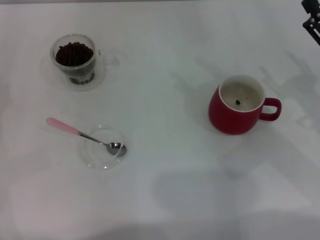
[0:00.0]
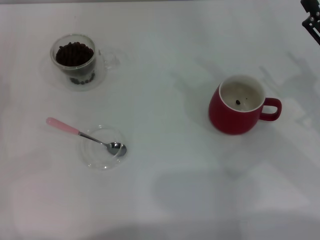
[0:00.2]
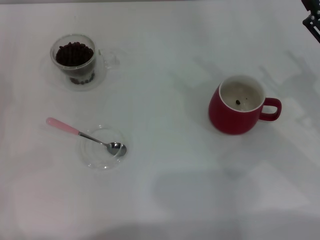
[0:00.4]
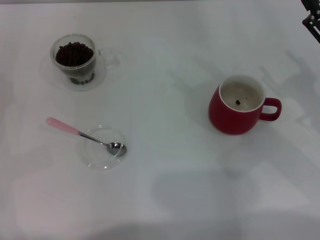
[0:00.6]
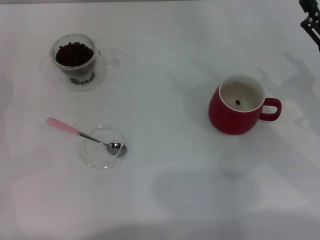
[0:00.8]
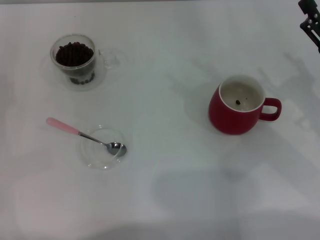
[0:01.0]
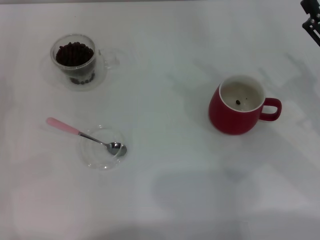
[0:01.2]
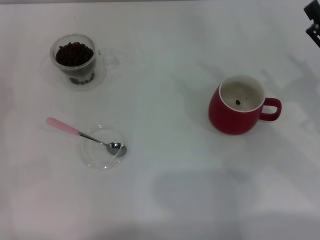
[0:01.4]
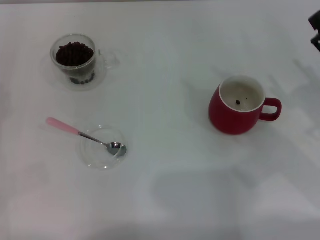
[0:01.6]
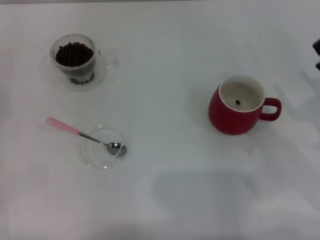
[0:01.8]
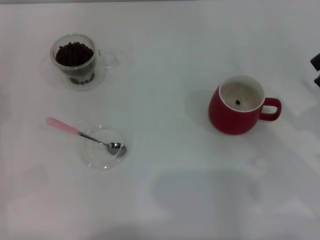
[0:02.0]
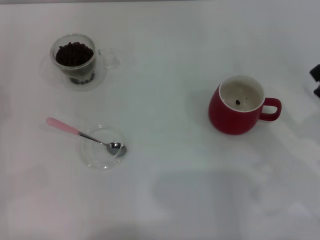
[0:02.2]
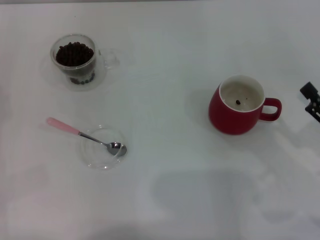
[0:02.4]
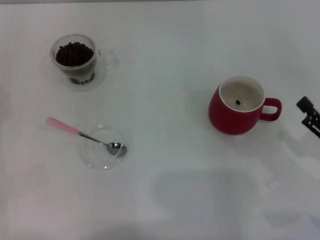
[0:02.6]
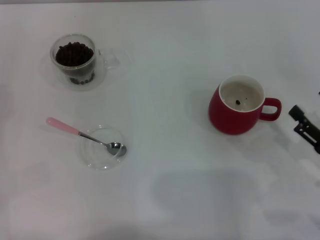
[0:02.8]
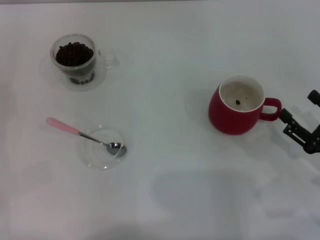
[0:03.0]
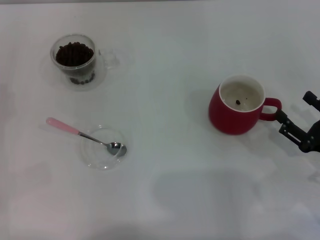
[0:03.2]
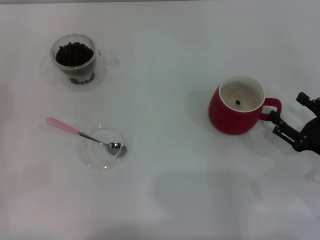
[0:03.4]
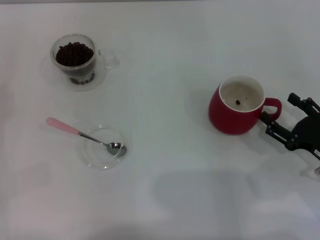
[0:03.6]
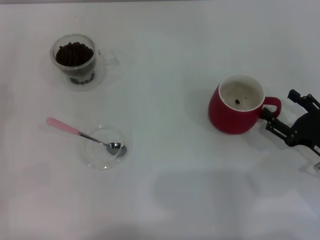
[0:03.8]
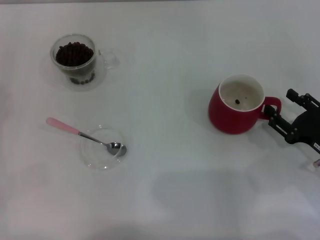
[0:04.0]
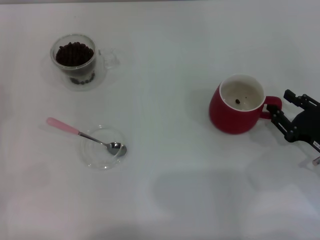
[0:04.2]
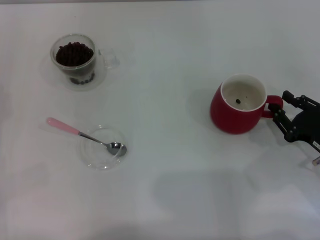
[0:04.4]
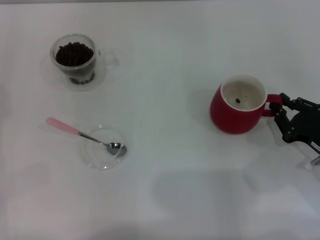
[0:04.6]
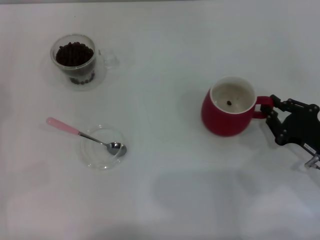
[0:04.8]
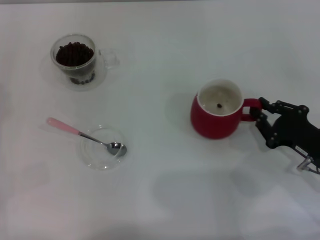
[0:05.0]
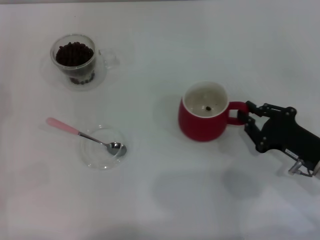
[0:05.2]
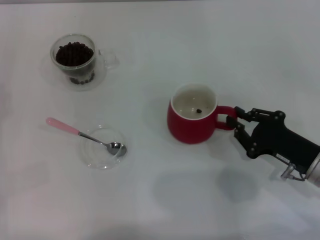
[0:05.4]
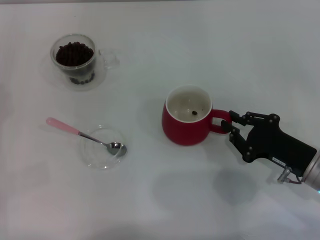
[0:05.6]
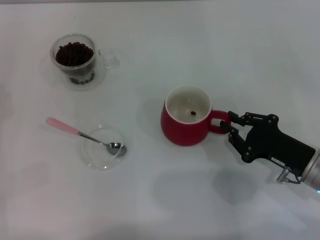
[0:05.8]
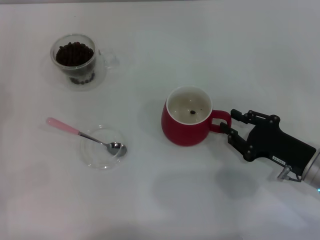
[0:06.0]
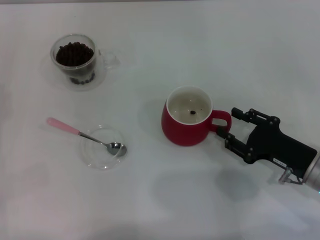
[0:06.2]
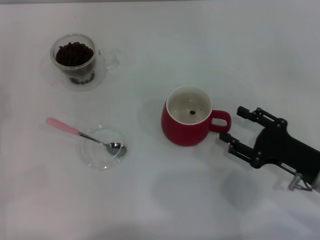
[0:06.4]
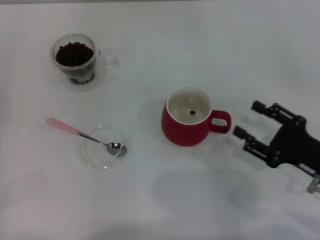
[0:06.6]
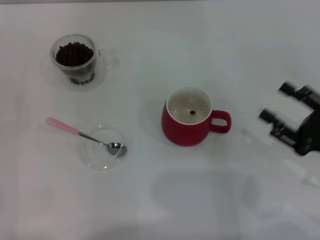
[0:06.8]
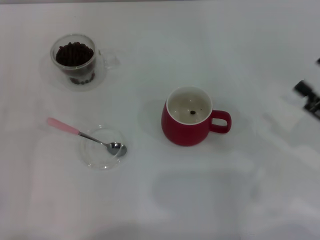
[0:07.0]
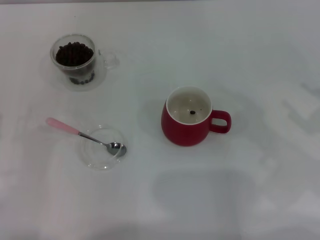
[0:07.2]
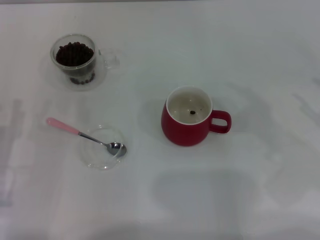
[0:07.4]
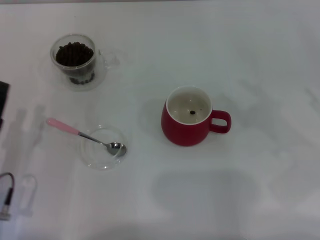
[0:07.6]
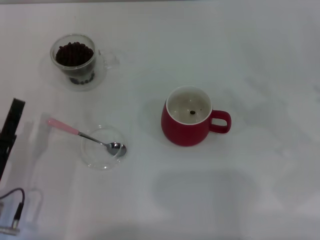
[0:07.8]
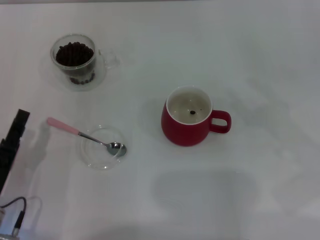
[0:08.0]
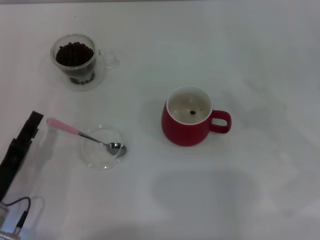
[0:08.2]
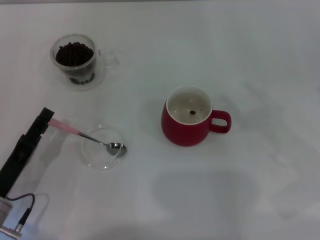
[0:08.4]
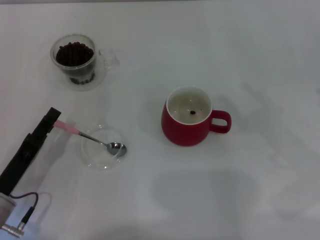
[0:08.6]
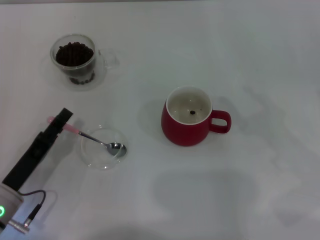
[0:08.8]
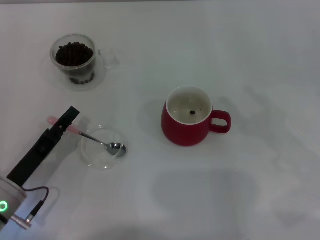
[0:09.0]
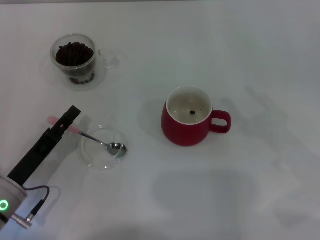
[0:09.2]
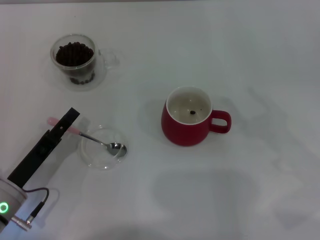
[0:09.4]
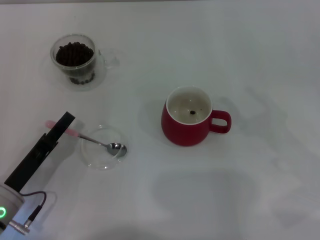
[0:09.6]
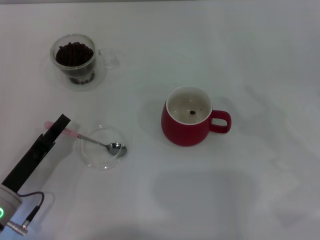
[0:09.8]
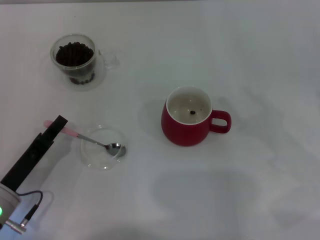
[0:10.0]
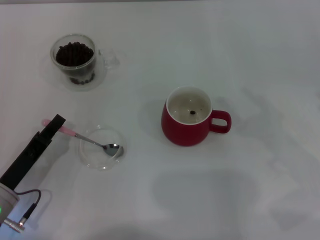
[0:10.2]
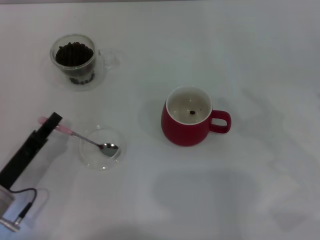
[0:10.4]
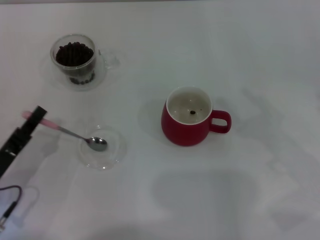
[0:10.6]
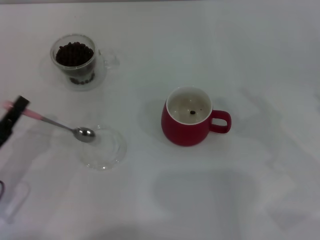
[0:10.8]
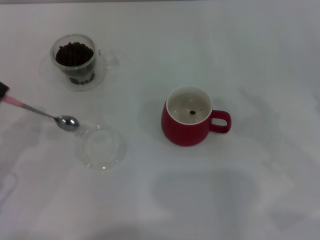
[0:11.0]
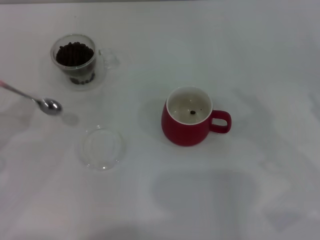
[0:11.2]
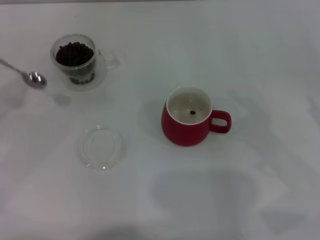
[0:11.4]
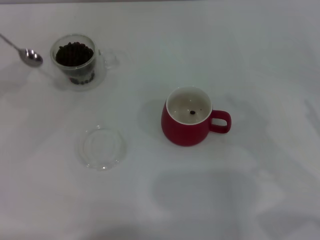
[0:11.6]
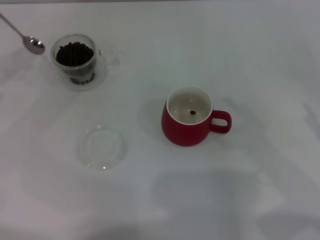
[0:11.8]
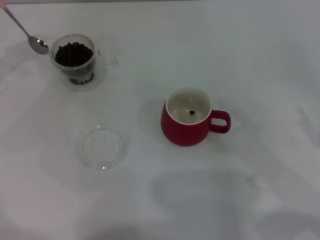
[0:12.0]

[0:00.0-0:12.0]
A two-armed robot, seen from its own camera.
Task of the whole recording: Use a pink spoon to take out the coffee beans from the glass and pour them into the red cup.
Step, 0:00.0 to 0:06.4: Move the cup to the center of view with the left gripper.
Step, 0:06.6 to 0:10.8: Pick up the spoon with the right gripper.
0:01.6 to 0:03.0: The right gripper shifts roughly 10 cm backward and downward.
0:03.0 to 0:04.4: The right gripper closes.
0:04.4 to 0:06.0: The right gripper closes.
0:06.0 to 0:07.6: The left gripper is displaced to the right by about 10 cm; the right gripper goes some 15 cm to the right and upward, and opens.
0:09.0 to 0:10.4: The left gripper closes.
0:10.4 to 0:12.0: The left gripper goes roughly 25 cm forward, upward and to the left.

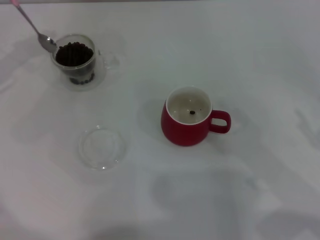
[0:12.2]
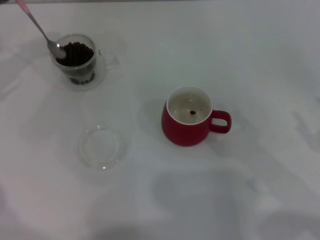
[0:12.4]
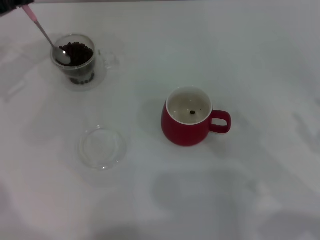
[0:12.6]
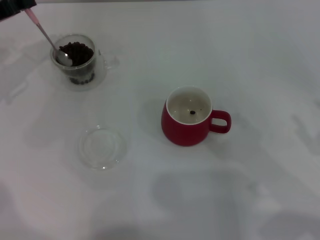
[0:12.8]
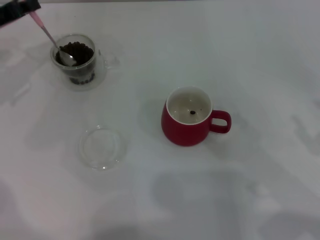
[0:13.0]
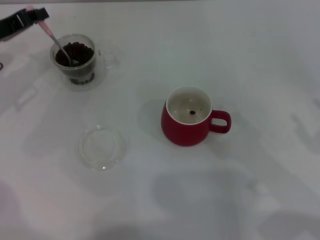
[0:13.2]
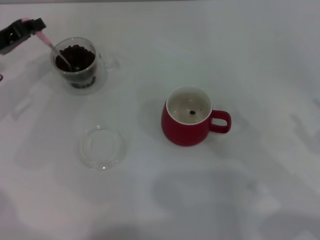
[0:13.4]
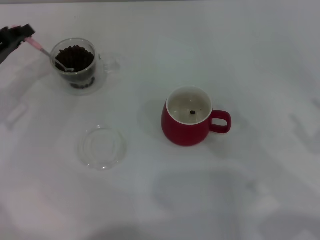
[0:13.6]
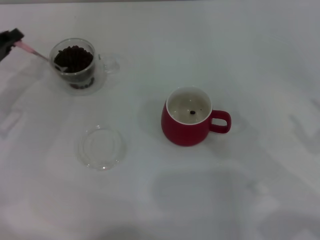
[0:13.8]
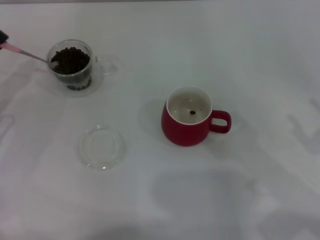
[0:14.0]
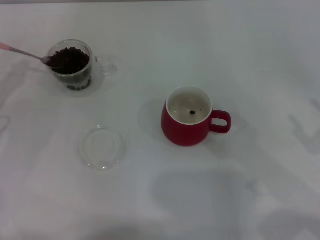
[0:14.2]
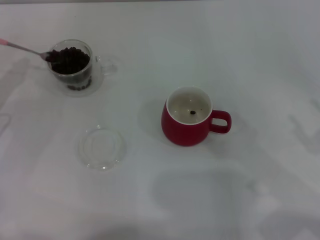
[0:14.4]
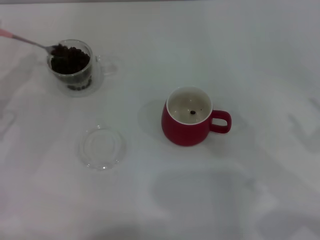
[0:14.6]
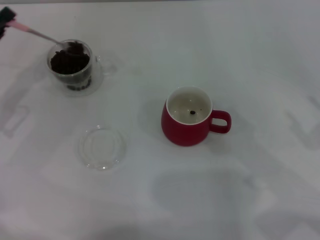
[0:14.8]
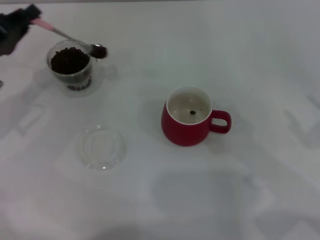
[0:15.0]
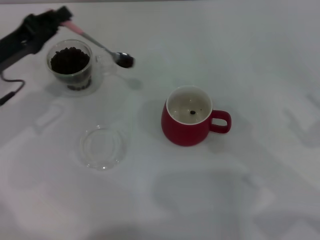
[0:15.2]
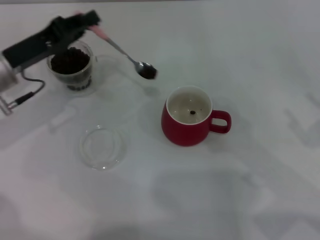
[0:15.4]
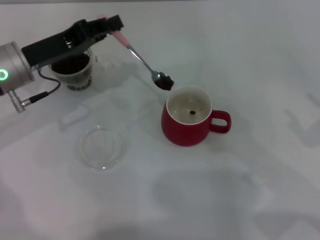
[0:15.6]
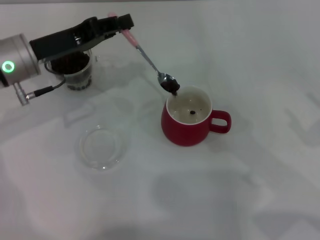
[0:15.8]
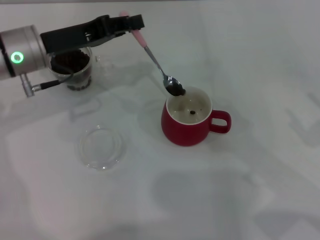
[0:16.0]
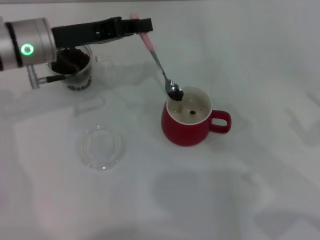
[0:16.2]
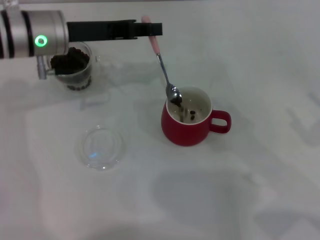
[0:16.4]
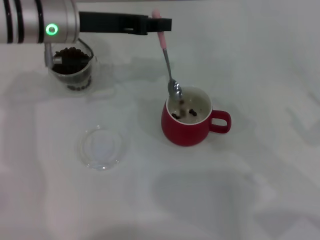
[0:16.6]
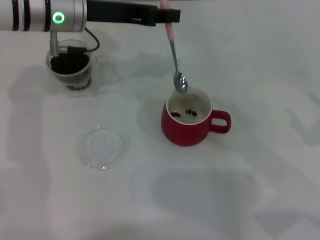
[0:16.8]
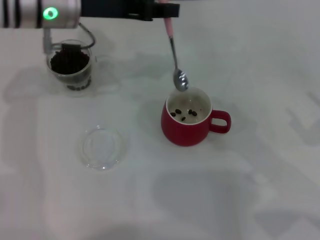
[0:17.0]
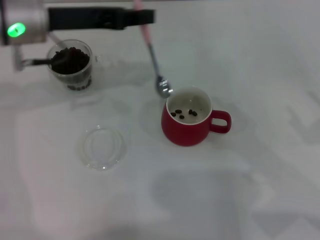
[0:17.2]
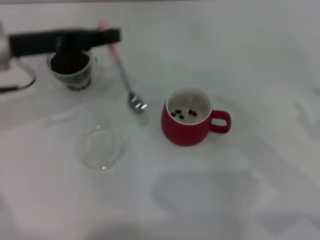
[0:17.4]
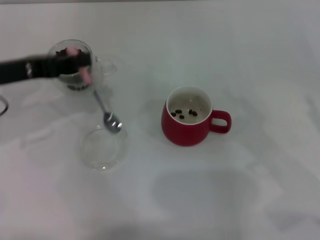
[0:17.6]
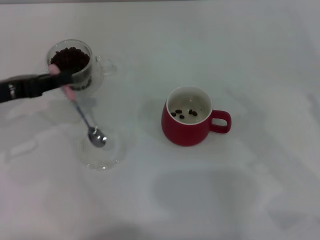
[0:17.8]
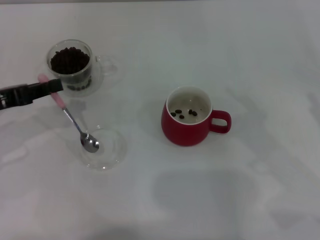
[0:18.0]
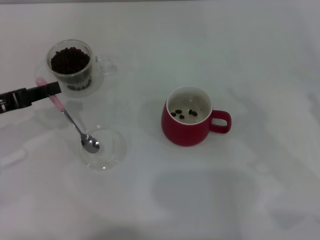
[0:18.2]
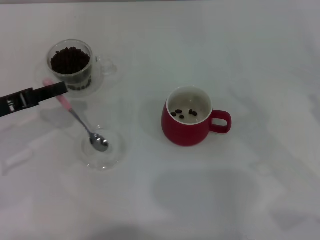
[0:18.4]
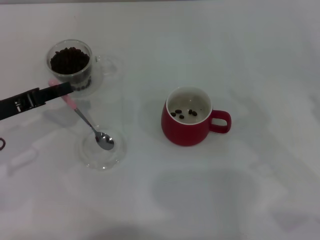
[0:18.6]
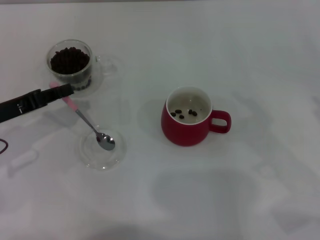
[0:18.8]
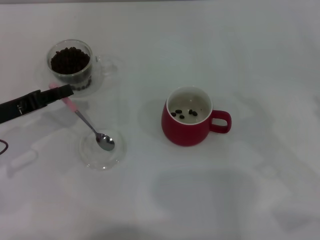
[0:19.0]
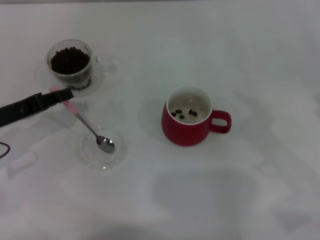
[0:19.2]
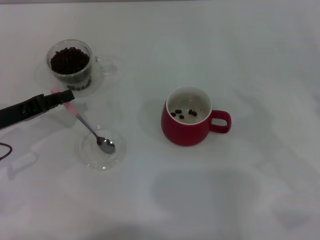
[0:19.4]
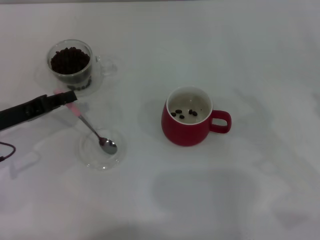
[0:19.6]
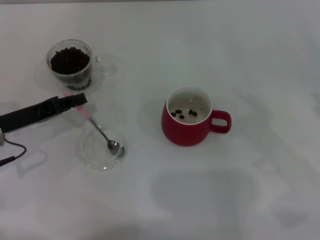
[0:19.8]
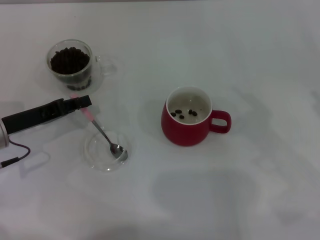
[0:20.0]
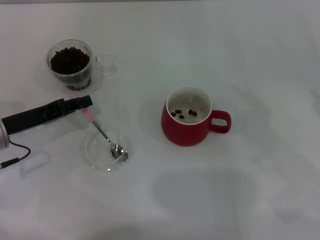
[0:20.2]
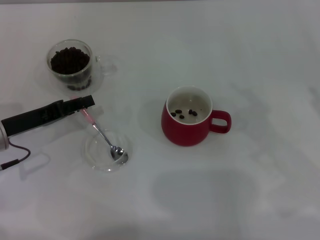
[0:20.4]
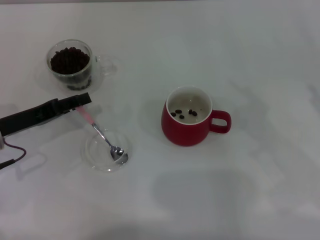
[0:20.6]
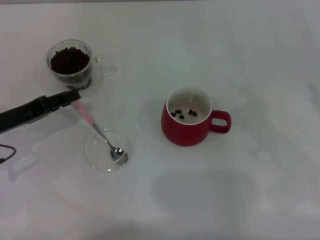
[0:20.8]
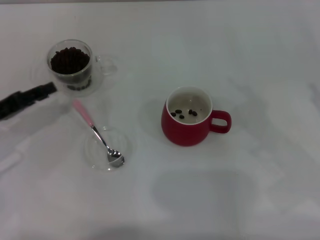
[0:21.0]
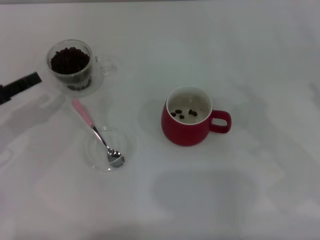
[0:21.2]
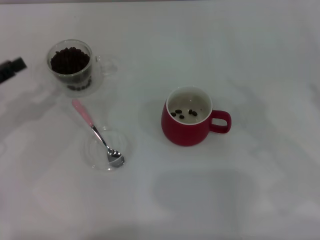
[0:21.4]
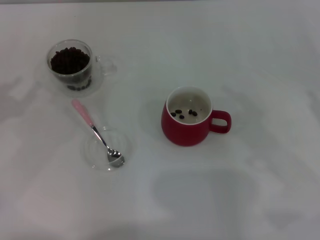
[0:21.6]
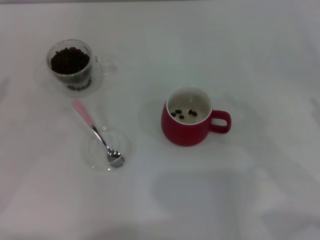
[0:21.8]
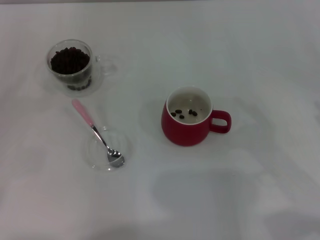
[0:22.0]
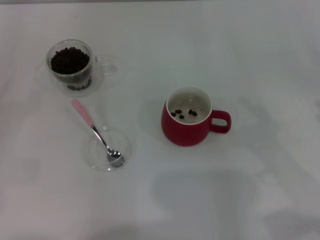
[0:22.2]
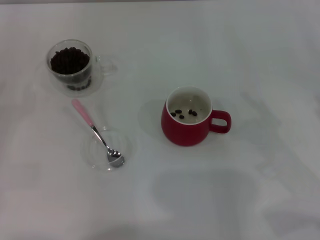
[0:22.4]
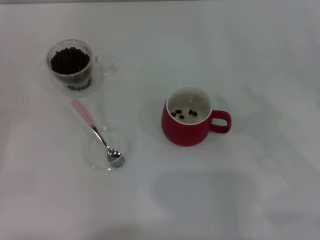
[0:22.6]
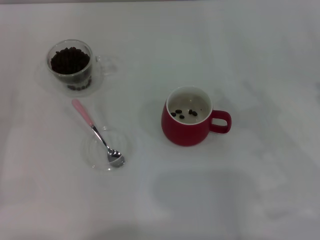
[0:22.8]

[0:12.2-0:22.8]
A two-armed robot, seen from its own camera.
Task of the whole recording: Use a pink spoon to take out the coffee beans from the glass and pour them into the red cup.
Step, 0:17.4 to 0:20.8: Place the spoon back in its original place with the right gripper.
0:12.2 to 0:13.8: The left gripper goes about 10 cm downward and backward.
0:13.8 to 0:15.2: The left gripper travels to the right by some 5 cm.
0:15.2 to 0:16.8: The left gripper shifts roughly 15 cm to the right, upward and forward.
0:16.8 to 0:18.2: The left gripper heads to the left, backward and downward, covering approximately 20 cm.
0:18.2 to 0:19.8: The left gripper changes place by about 5 cm.
0:19.8 to 0:21.2: The left gripper shifts approximately 5 cm to the left, and opens up.
0:21.2 to 0:22.8: The left gripper shifts approximately 10 cm backward and to the left.
